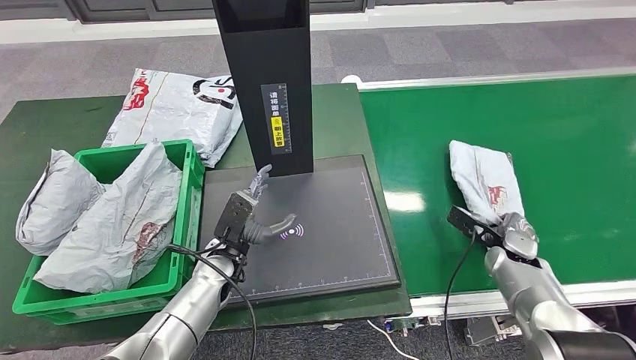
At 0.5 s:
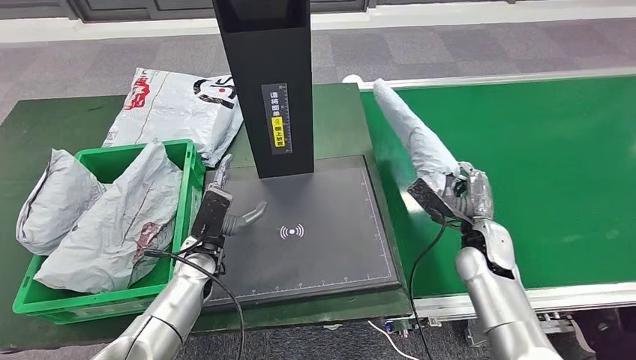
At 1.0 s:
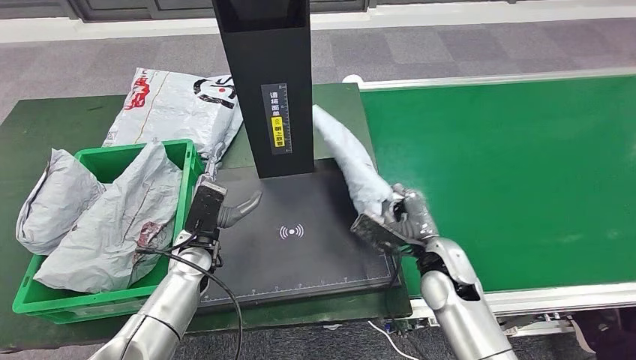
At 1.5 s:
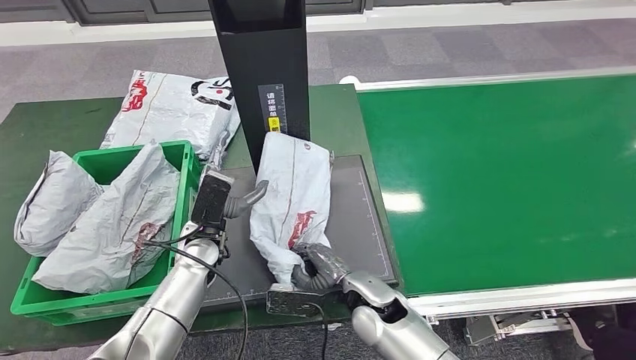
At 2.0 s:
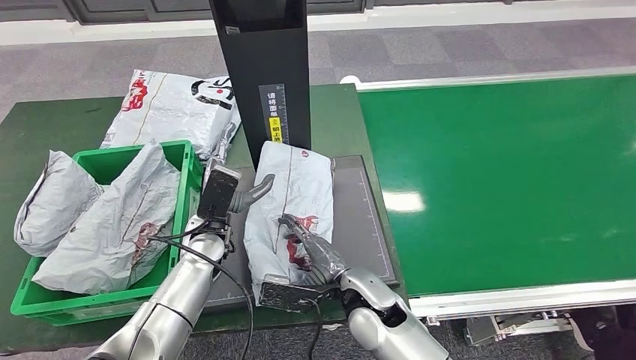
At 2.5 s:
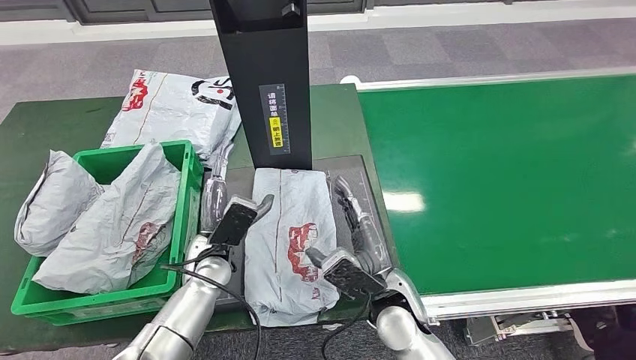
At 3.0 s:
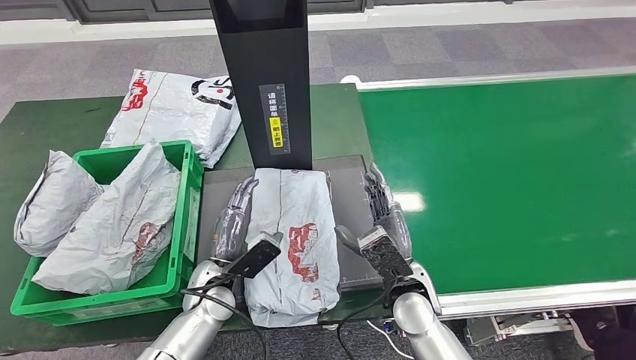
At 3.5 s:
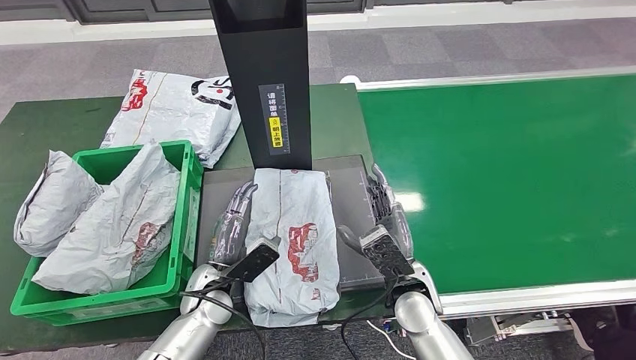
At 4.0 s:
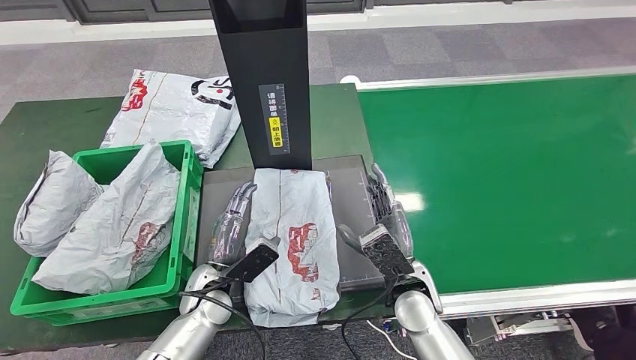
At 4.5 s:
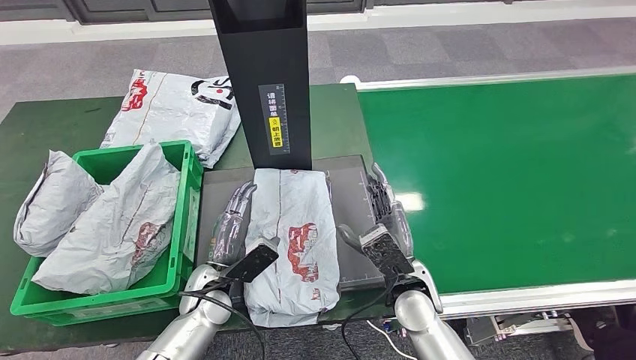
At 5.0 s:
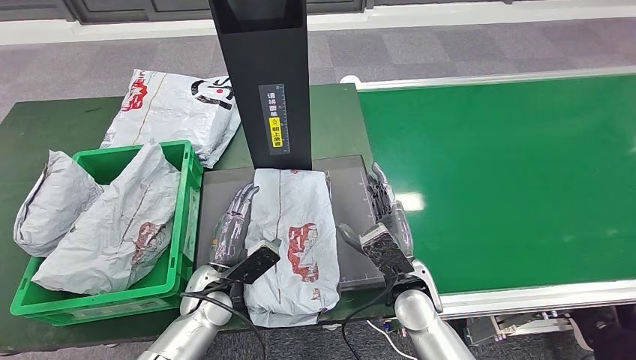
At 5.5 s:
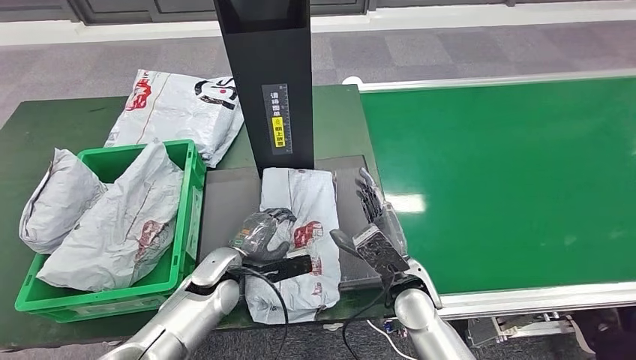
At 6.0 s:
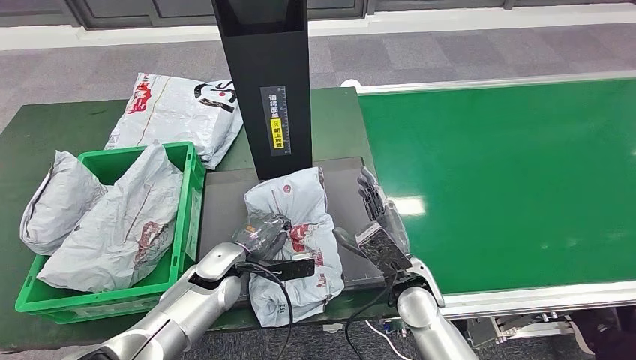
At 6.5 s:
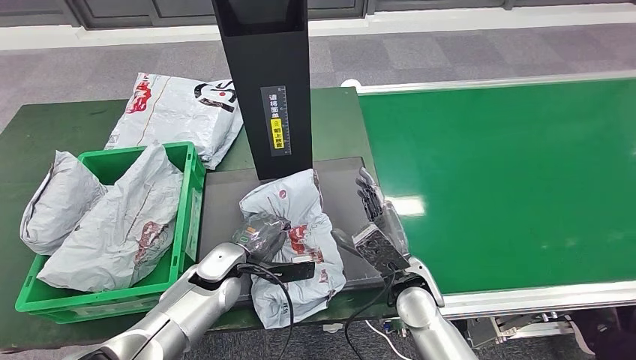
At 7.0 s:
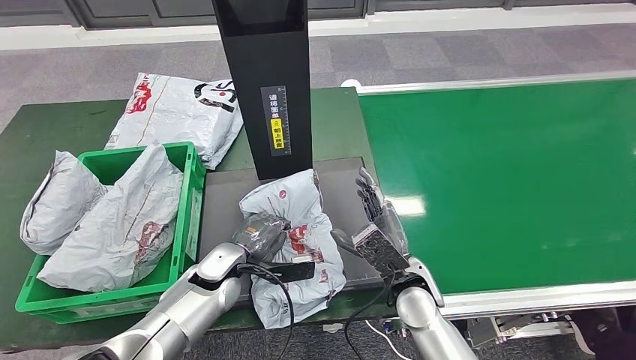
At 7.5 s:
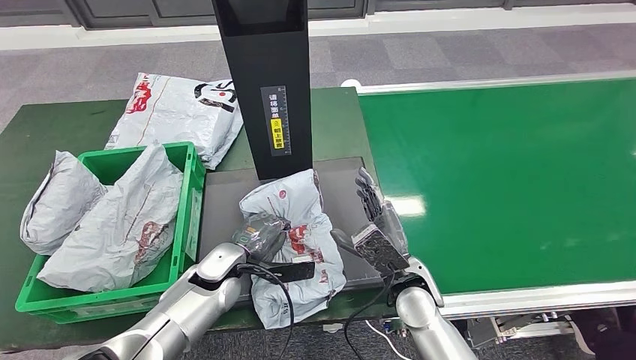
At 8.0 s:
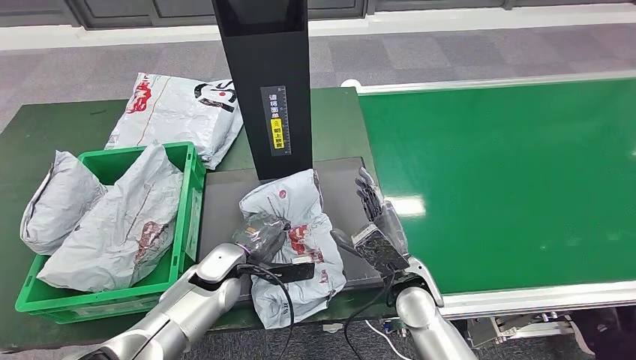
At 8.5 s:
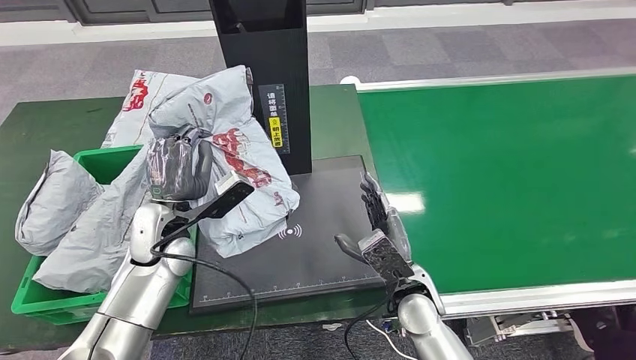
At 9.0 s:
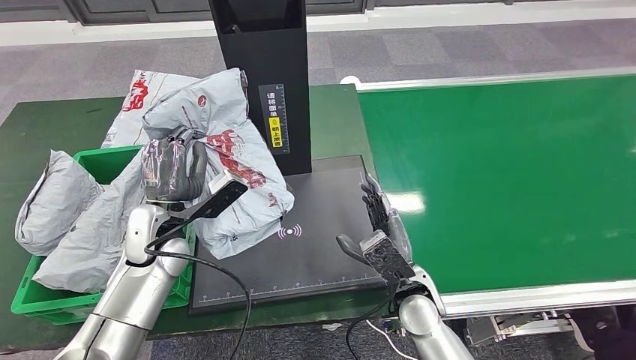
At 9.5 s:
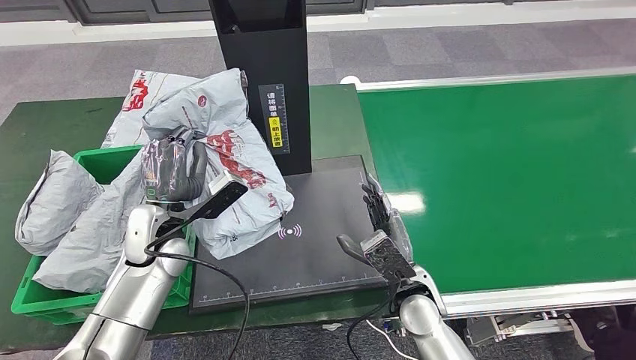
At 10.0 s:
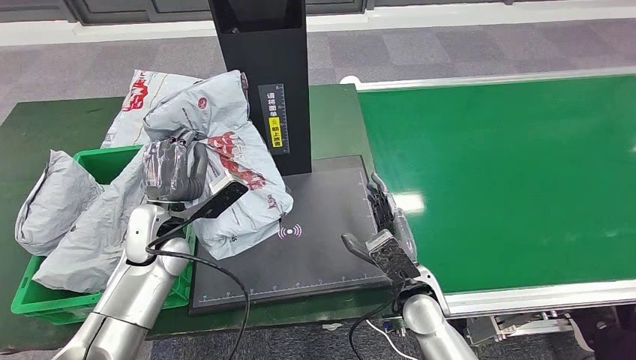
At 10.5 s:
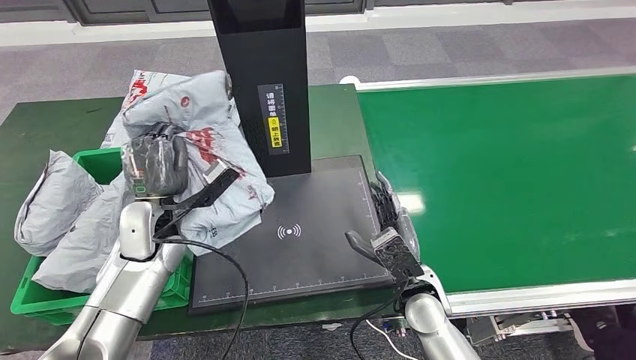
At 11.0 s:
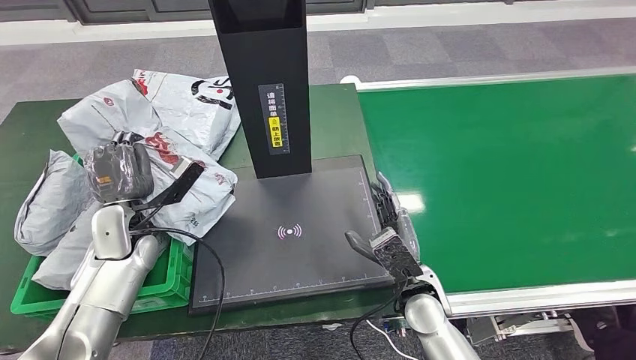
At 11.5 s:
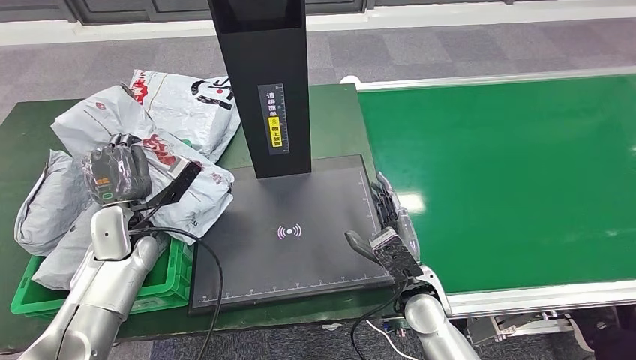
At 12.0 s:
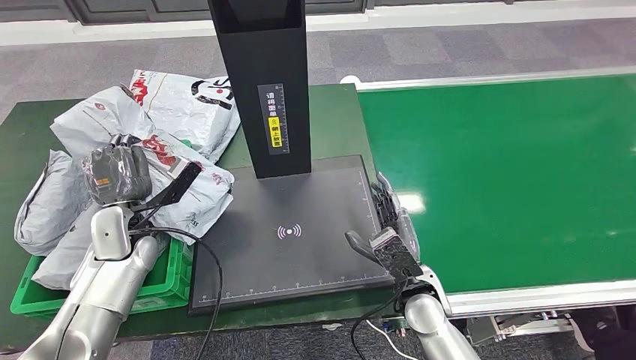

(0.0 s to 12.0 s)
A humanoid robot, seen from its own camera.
Step, 1.0 s - 3.0 s: Place the parcel onto the inbound machine.
Step, 6.0 s - 9.5 s: Pick up the parcel from the inbound machine.
2.0 s - 4.0 s: The left hand travels downward and backward by some 10 cm. Meanwhile the right hand moves to the right, about 10 cm.
6.0 s - 8.0 s: Both hands stay about where they are.
10.0 s - 12.0 s: The left hand goes some 10 cm to the left.

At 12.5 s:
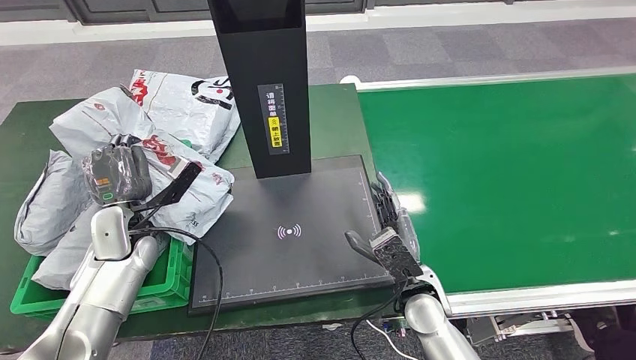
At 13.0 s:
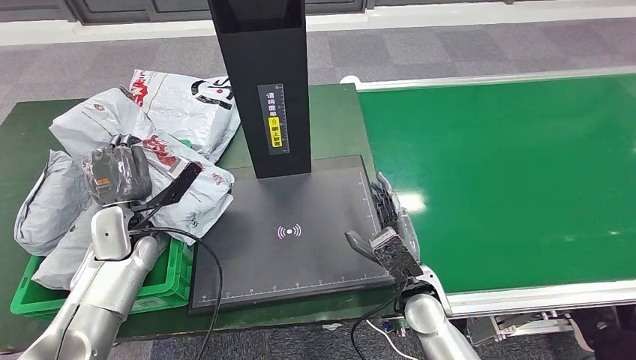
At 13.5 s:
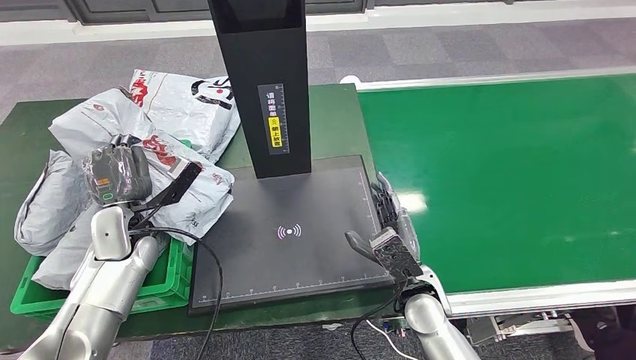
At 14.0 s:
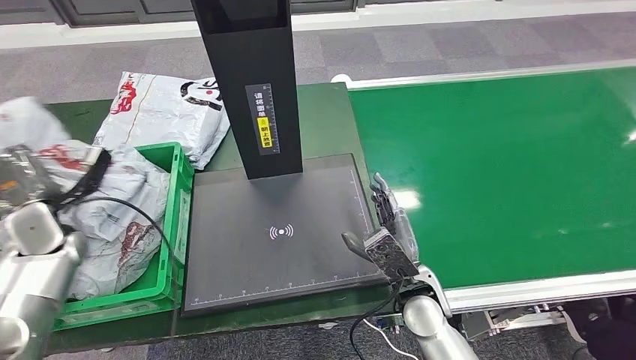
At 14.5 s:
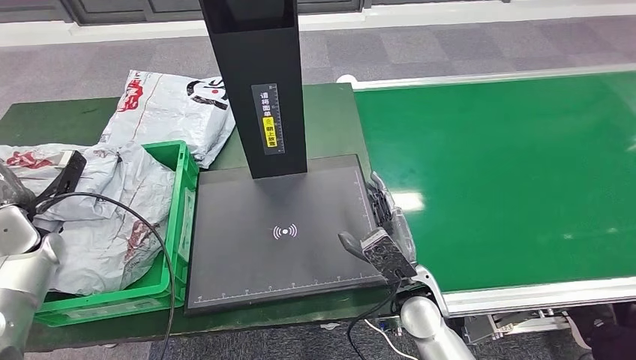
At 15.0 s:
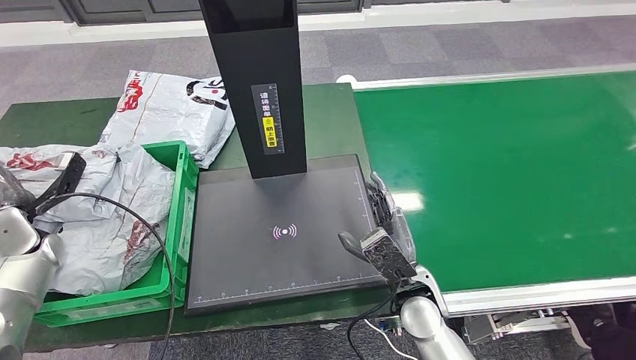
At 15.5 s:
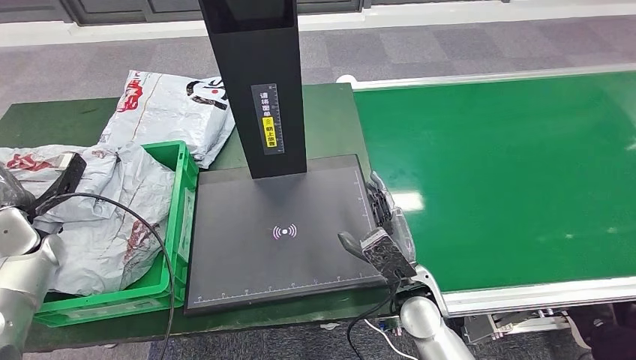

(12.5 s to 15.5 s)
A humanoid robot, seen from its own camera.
Step, 12.5 s - 15.0 s: Place the parcel into the delivery box.

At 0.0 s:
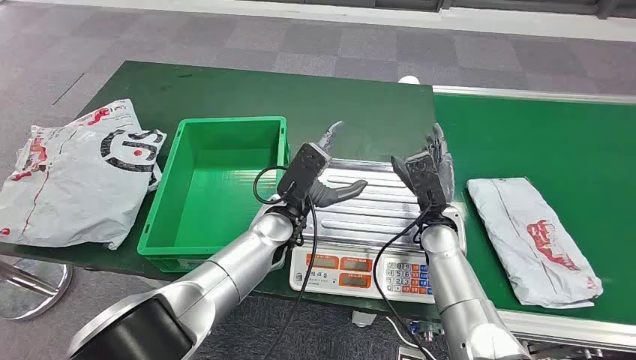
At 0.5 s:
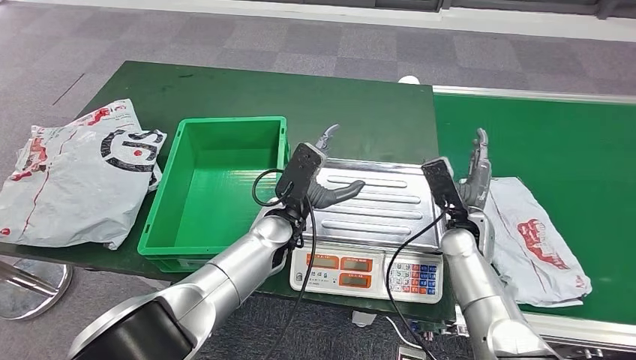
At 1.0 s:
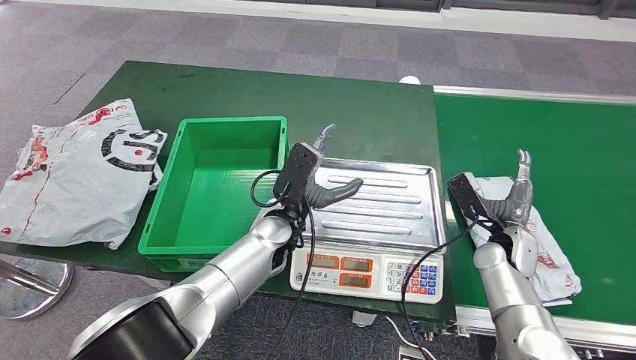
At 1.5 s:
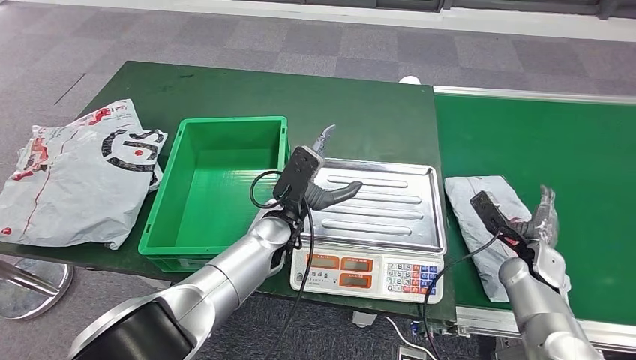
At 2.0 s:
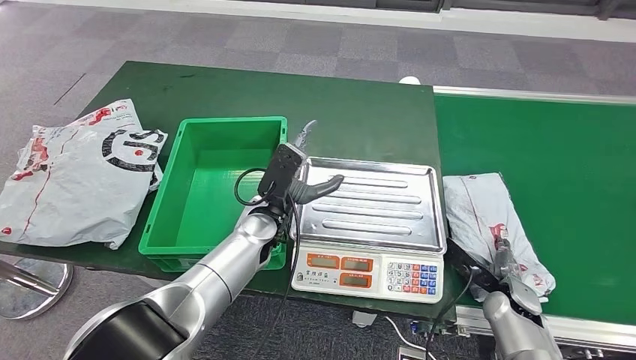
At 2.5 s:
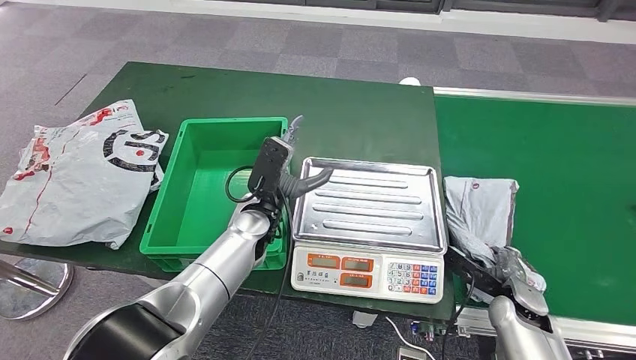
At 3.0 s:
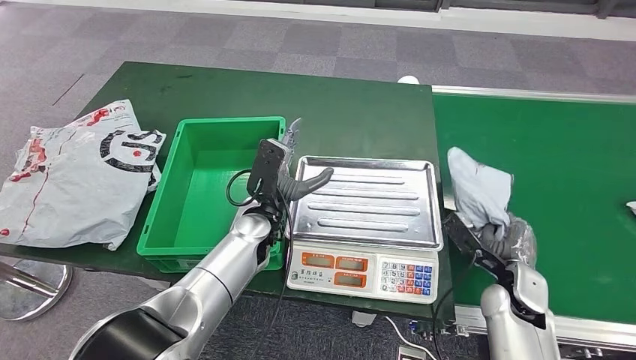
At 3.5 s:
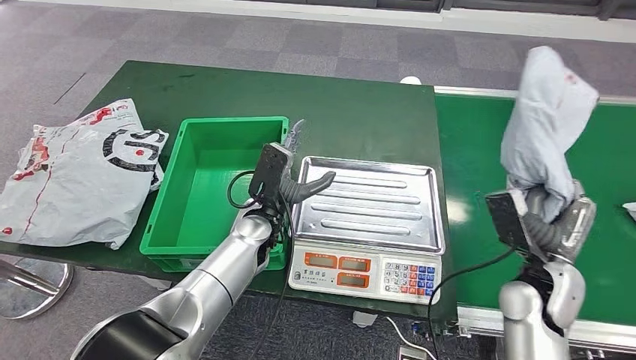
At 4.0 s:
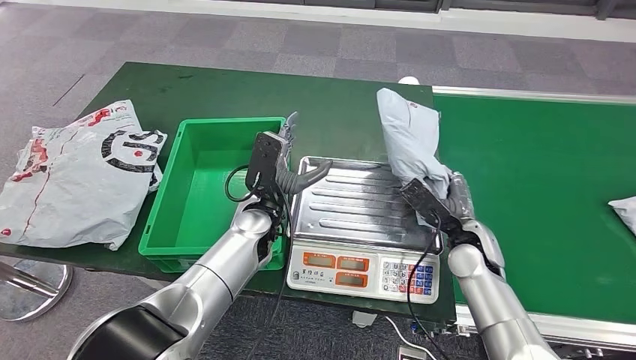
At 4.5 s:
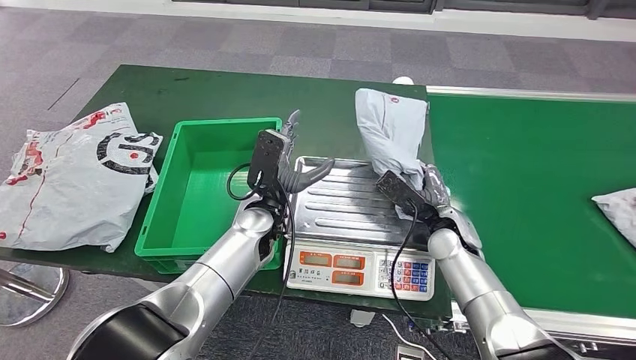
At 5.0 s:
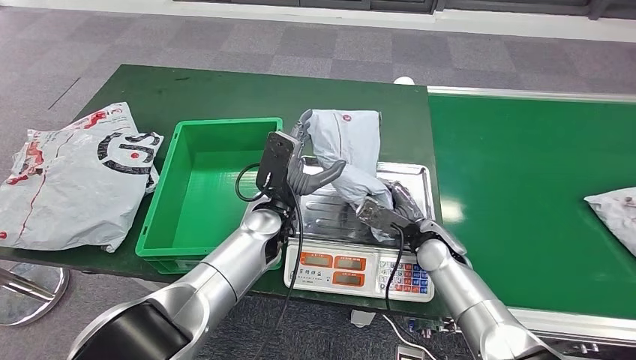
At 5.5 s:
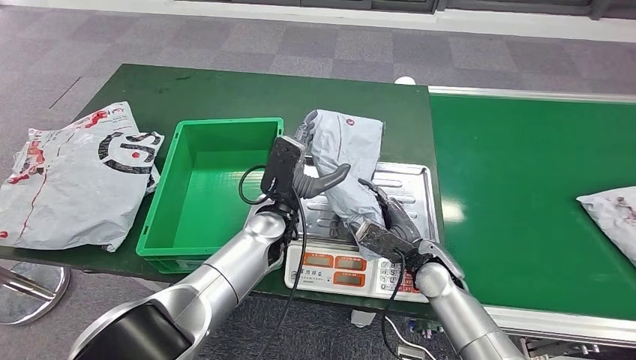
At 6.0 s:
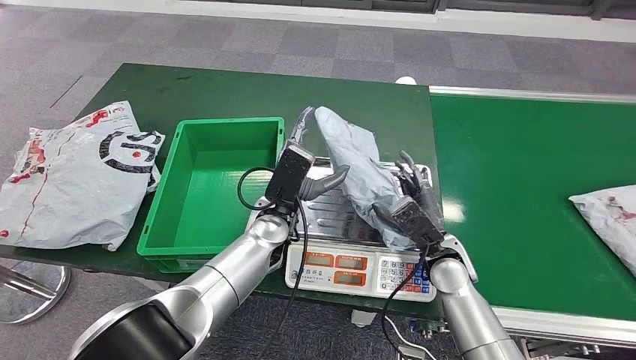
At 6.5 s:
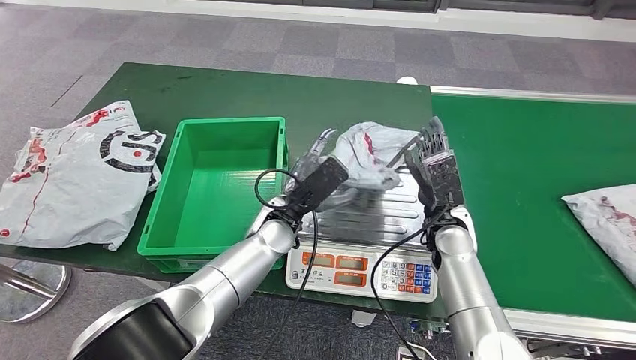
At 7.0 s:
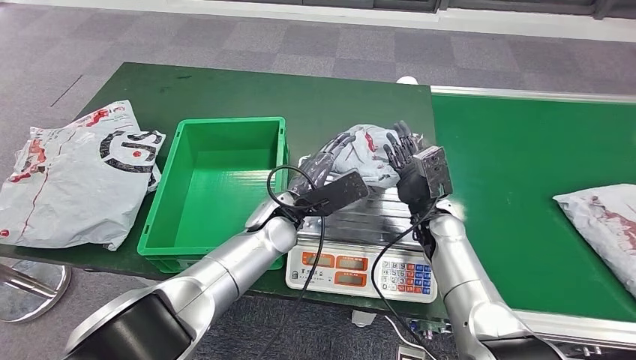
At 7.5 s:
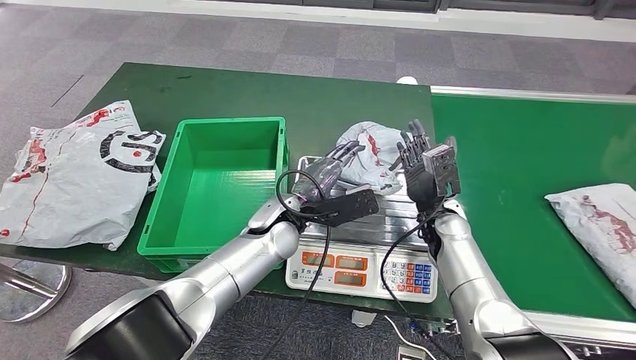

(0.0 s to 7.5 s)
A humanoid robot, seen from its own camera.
Step, 0.0 s - 3.5 s: Take the parcel off the conveyor belt.
2.0 s - 4.0 s: The right hand is displaced upward, to the left and forward by about 15 cm.
